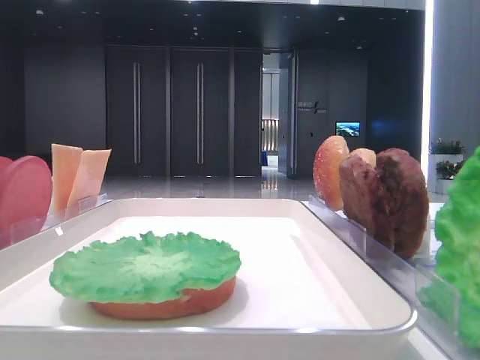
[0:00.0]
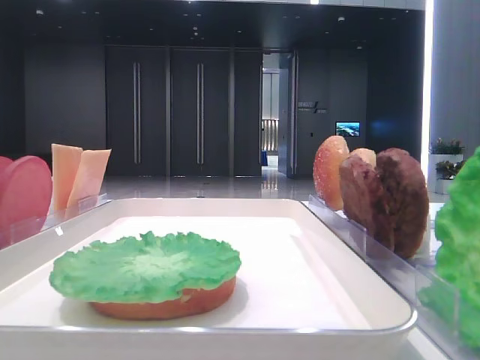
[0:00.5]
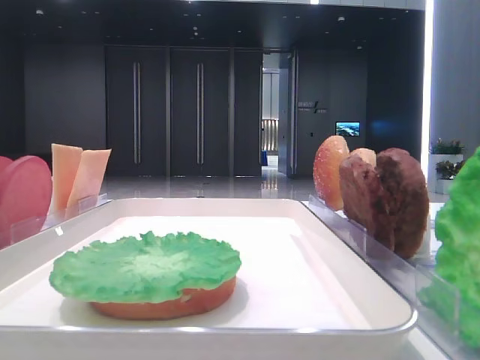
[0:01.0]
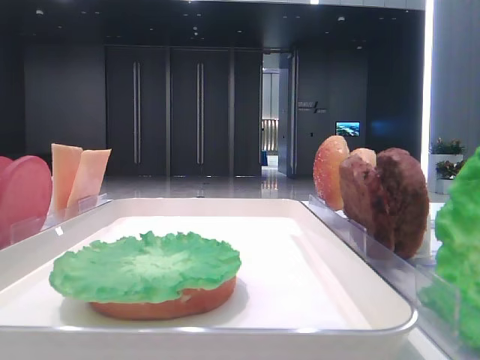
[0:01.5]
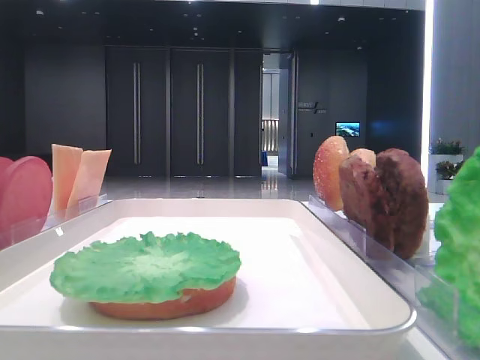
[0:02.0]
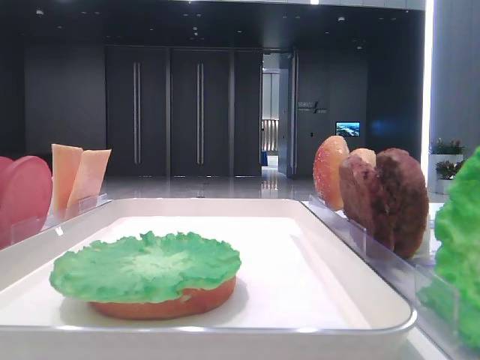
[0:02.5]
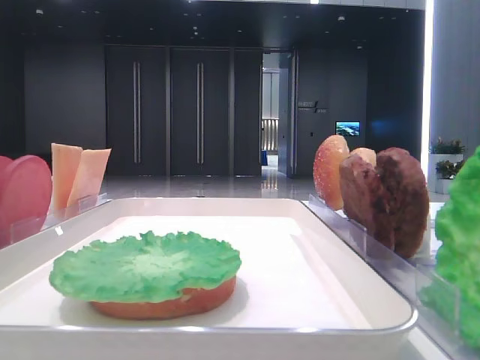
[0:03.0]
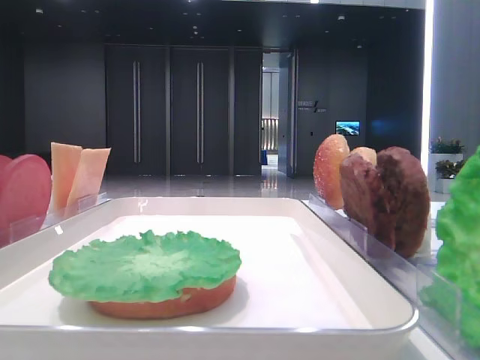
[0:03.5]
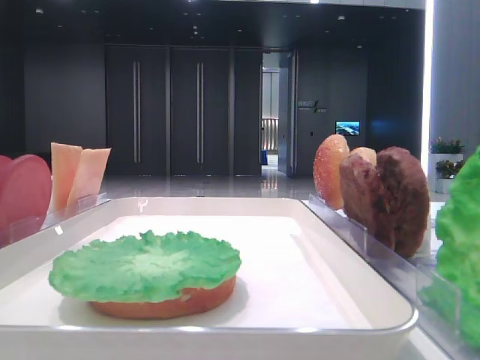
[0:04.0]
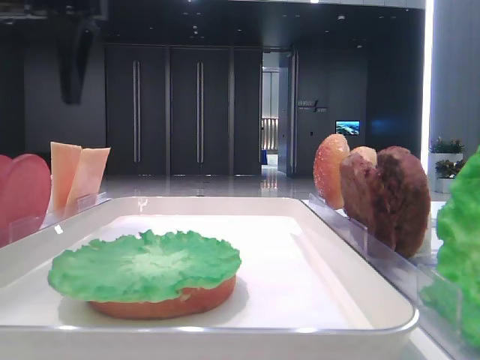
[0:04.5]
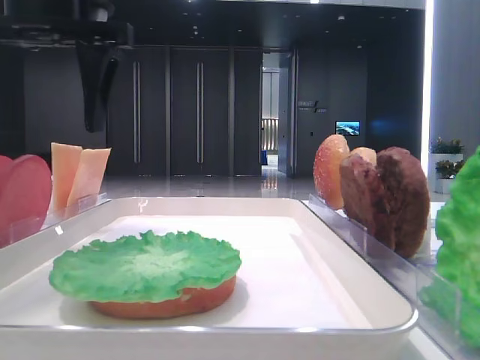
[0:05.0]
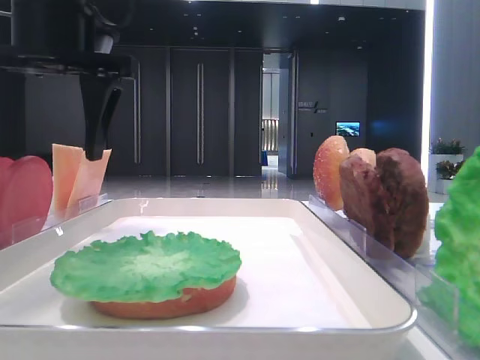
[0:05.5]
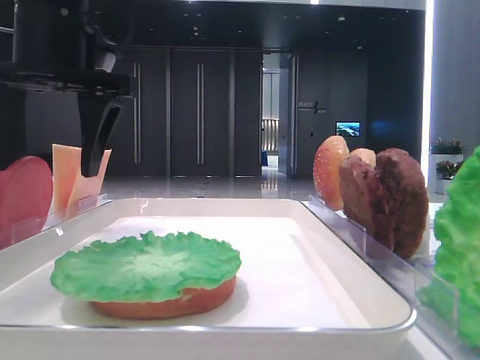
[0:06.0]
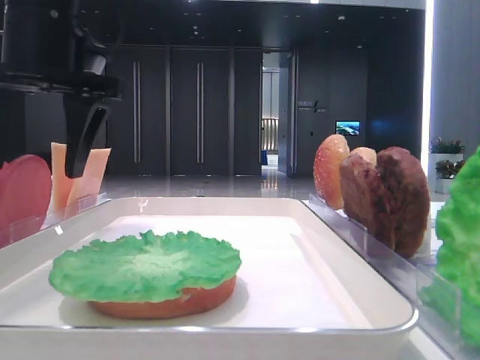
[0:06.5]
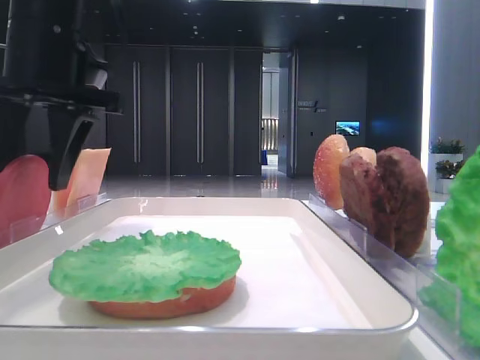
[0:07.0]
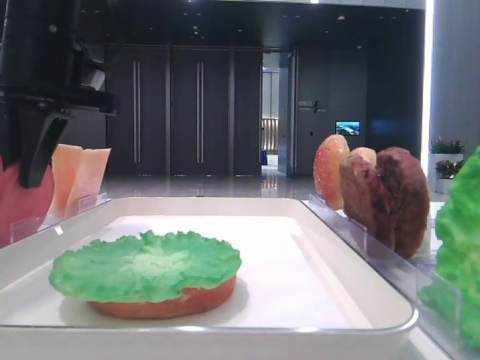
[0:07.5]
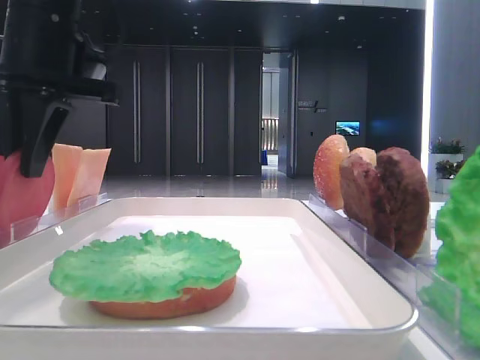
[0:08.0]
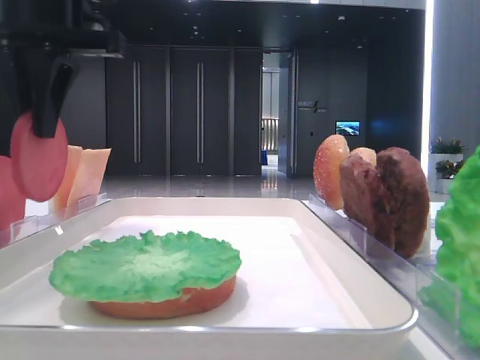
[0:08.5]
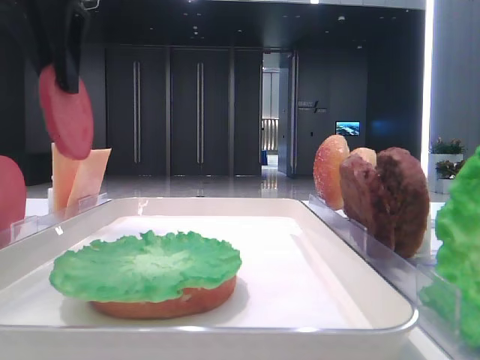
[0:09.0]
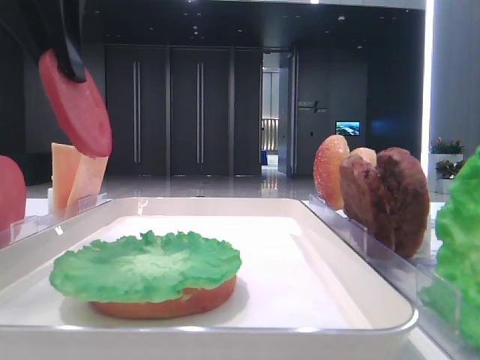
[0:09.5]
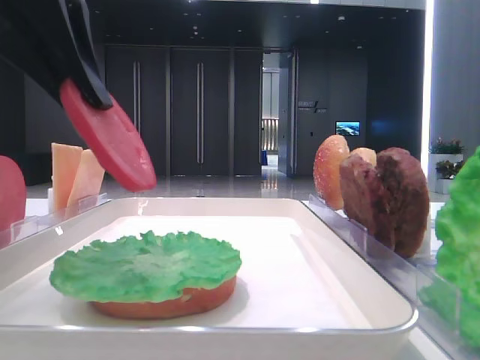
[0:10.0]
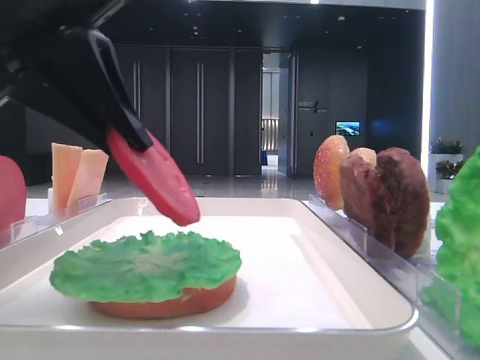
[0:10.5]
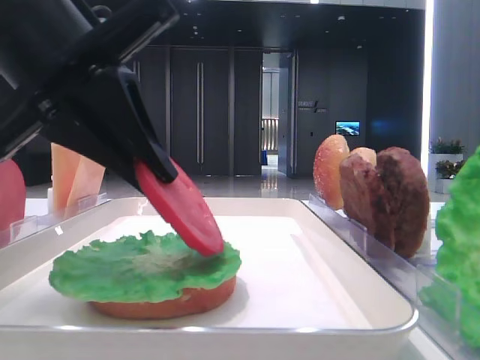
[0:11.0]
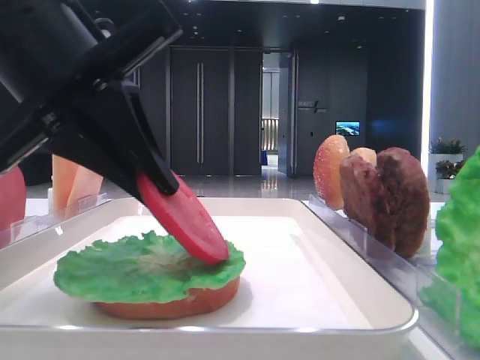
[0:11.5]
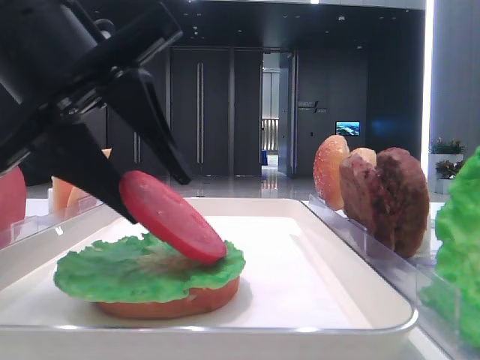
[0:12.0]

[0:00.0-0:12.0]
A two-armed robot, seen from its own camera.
Step, 0:00.0 to 0:07.5: Pick up the tomato slice with the left hand.
0:02.0 to 0:04.0: The left gripper moves forward, about 30 cm.
0:04.0 to 0:06.0: The left gripper goes approximately 15 cm to the right and downward.
0:06.0 to 0:08.0: The left gripper closes its fingers.
0:08.0 to 0:10.0: The left gripper is displaced backward by some 10 cm.
0:10.0 to 0:12.0: The left gripper shifts roughly 5 cm downward, and opens its fingers.

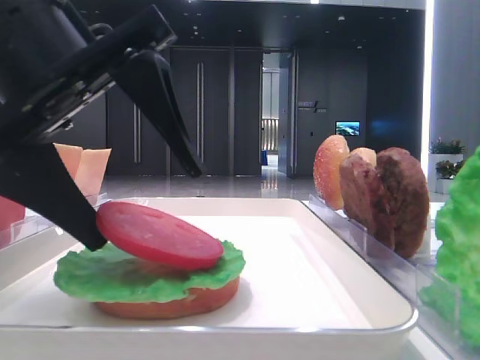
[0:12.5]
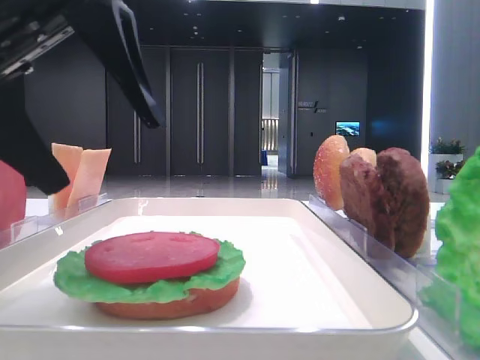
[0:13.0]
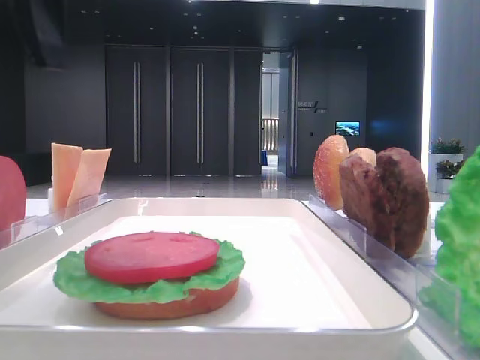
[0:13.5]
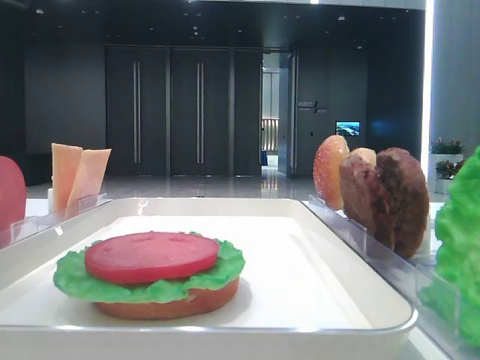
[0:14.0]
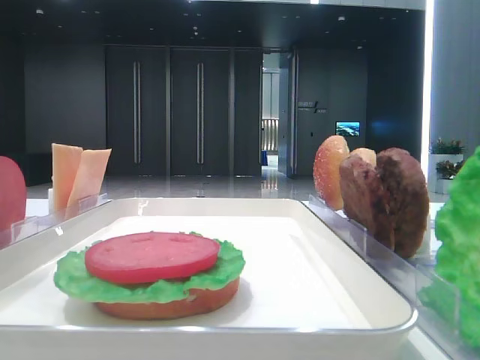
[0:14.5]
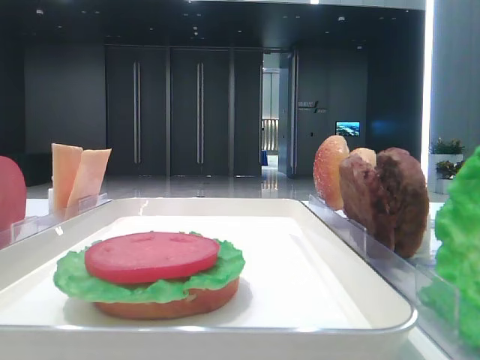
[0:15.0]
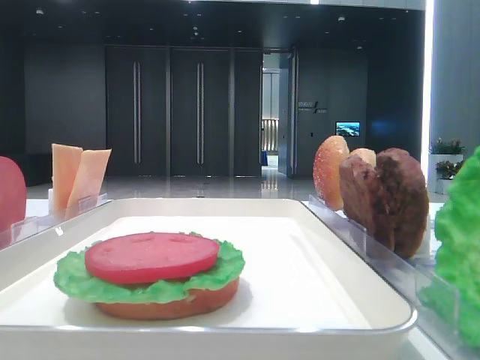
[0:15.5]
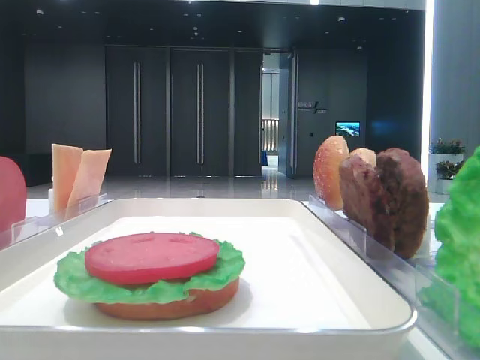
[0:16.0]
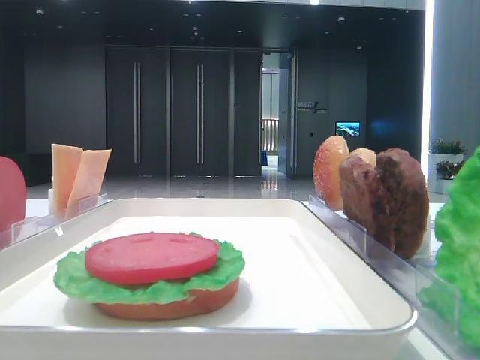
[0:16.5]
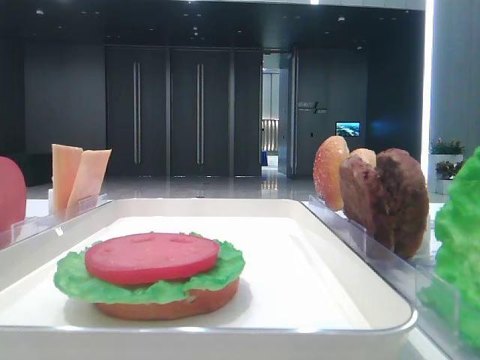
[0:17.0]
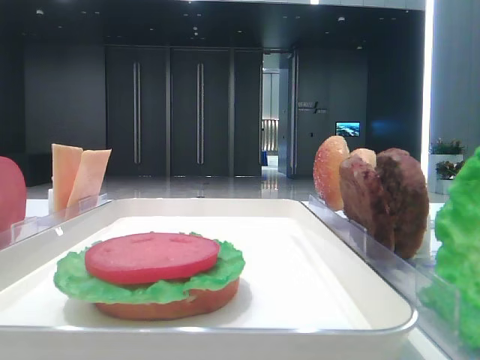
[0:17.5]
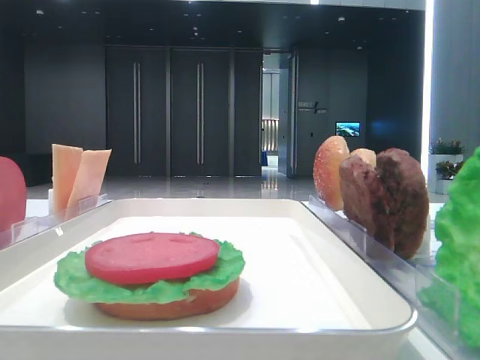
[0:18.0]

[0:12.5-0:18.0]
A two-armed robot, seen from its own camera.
0:12.5 to 0:14.5: The left gripper shifts some 20 cm upward and to the left.
0:14.5 to 0:16.0: The left gripper moves backward, approximately 20 cm.
